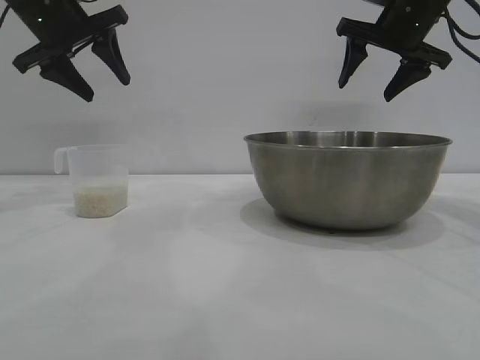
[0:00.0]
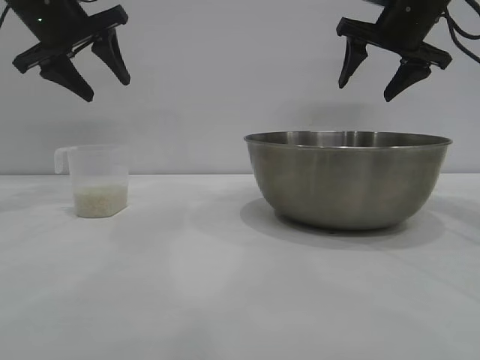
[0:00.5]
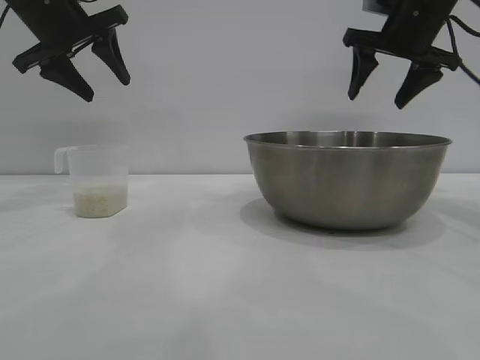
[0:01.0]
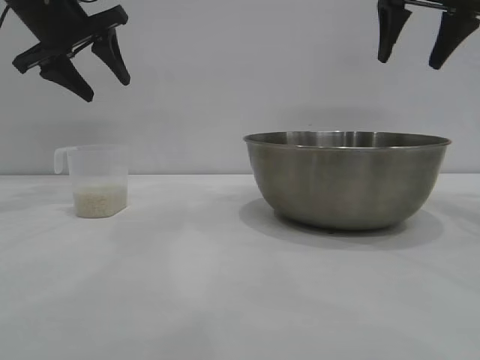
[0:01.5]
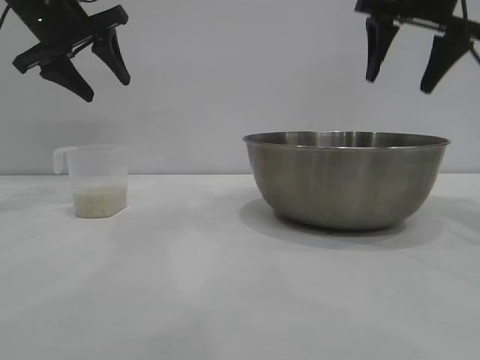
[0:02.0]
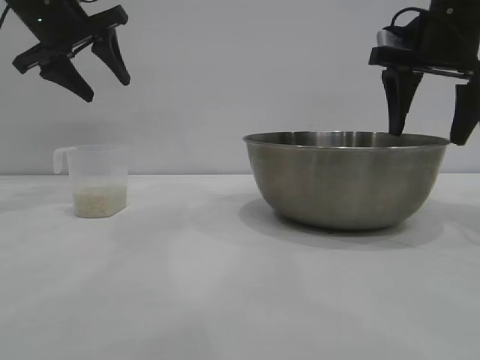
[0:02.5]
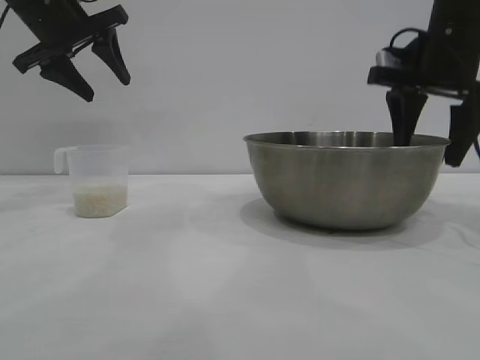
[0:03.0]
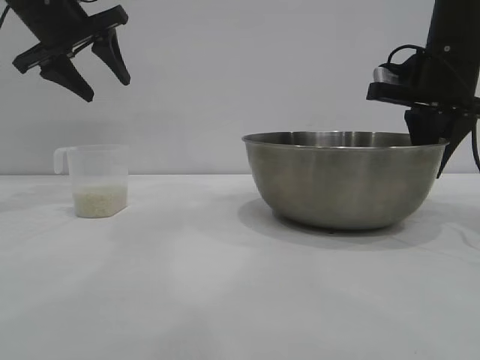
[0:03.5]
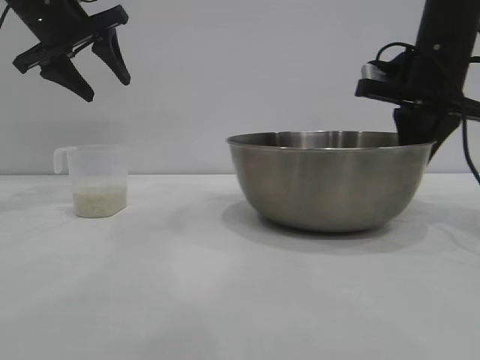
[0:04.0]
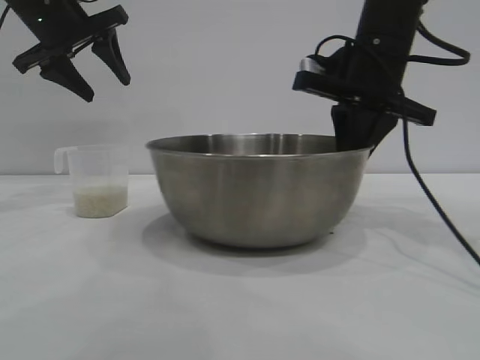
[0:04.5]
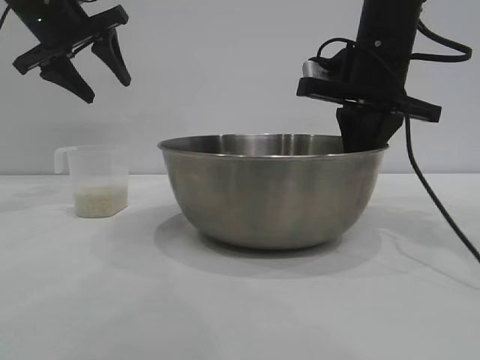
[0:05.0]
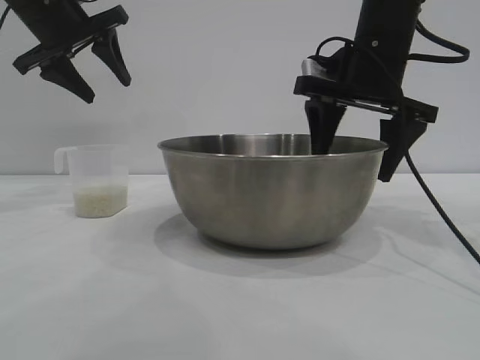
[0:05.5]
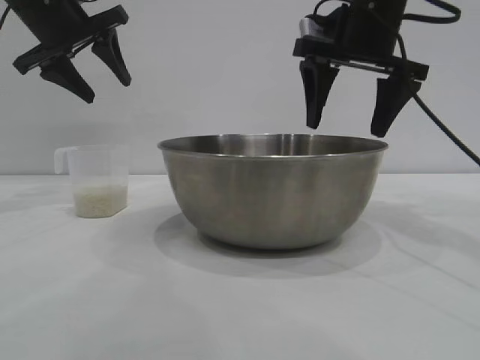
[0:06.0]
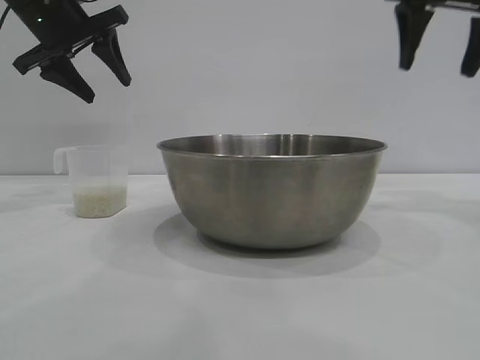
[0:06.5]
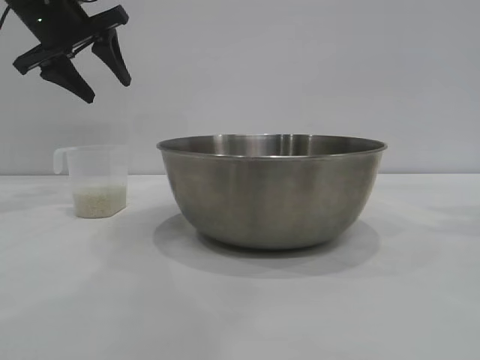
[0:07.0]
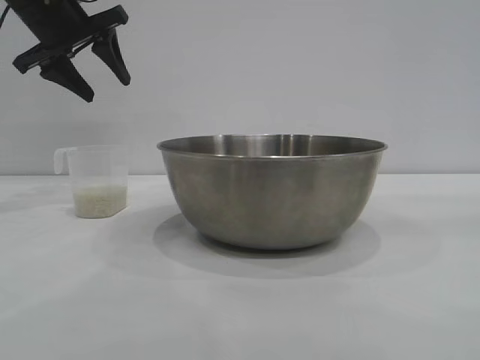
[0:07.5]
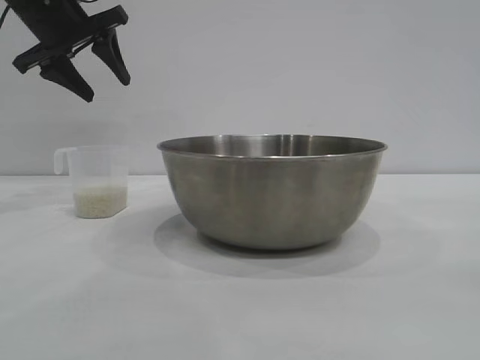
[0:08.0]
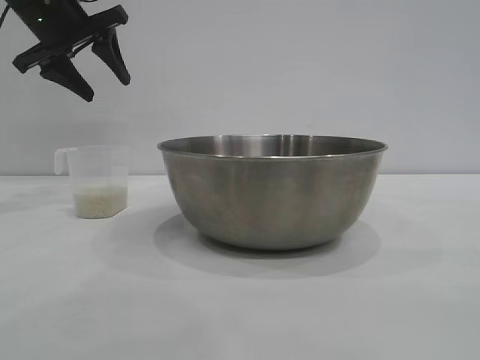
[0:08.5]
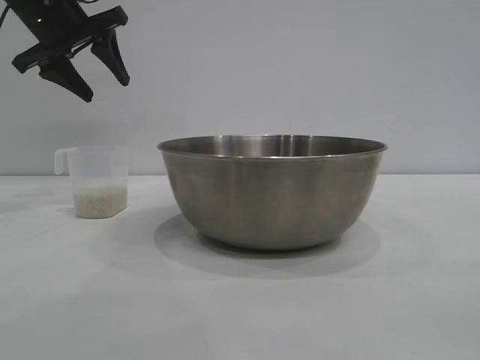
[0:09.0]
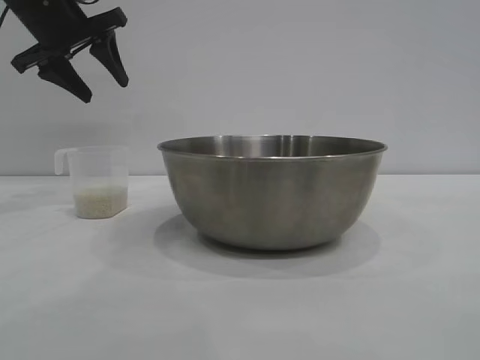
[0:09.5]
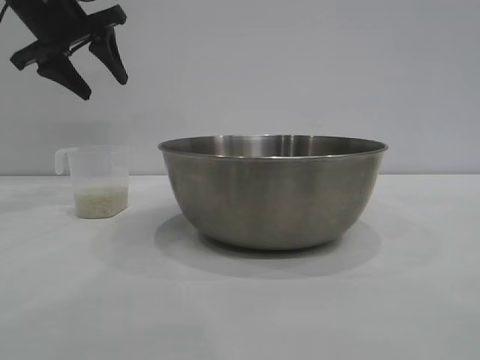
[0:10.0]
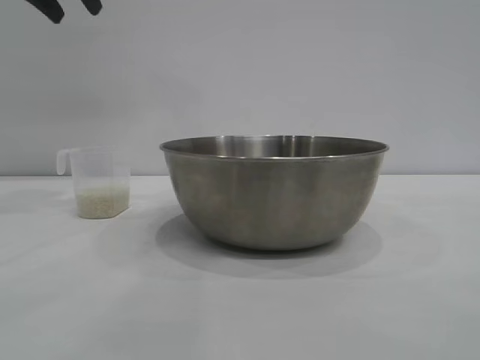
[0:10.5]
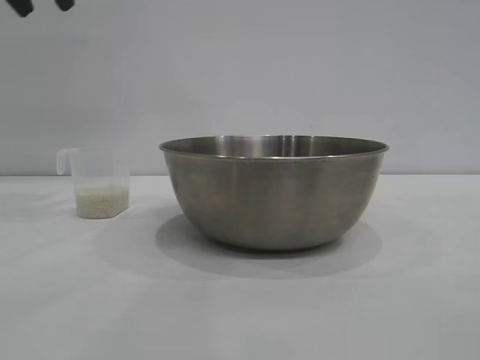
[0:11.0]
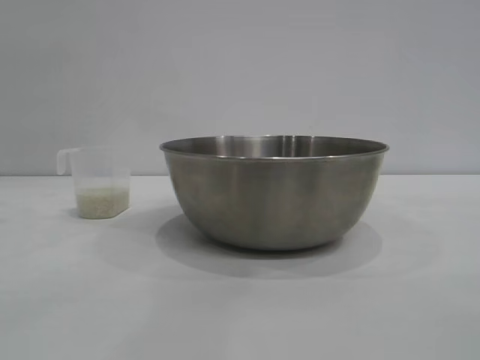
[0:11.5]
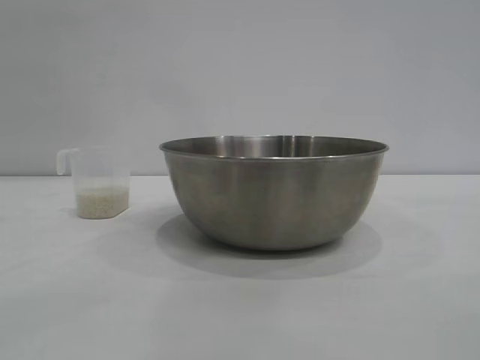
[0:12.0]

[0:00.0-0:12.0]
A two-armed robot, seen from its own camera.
Task of the whole recording: the right gripper grasp the rice container and place it in the center of the table, the left gripper grasp the rice scoop and pour the rice into the rice container.
Step, 0:00.0 to 0:06.0: Move the bowl to the center of view with the right gripper.

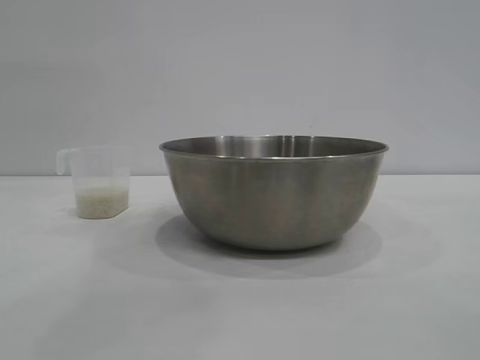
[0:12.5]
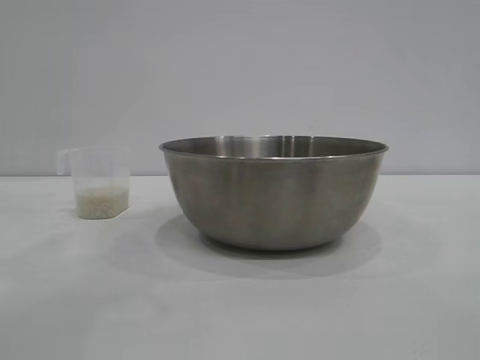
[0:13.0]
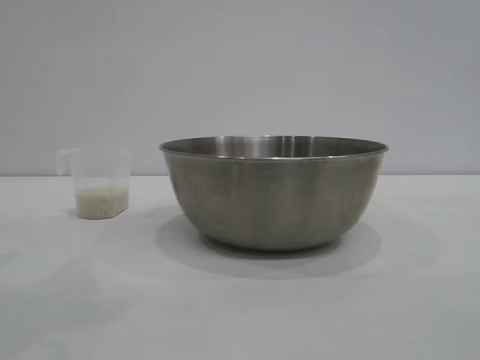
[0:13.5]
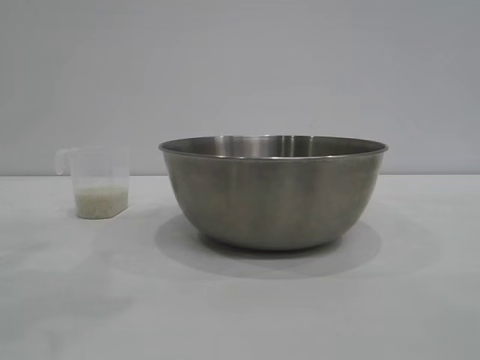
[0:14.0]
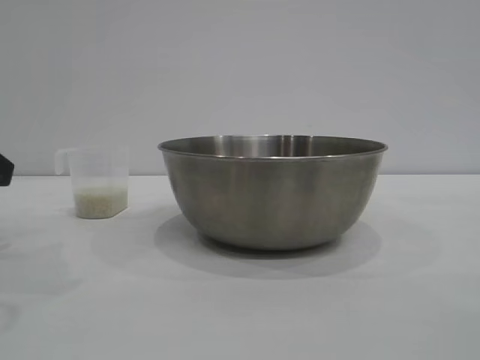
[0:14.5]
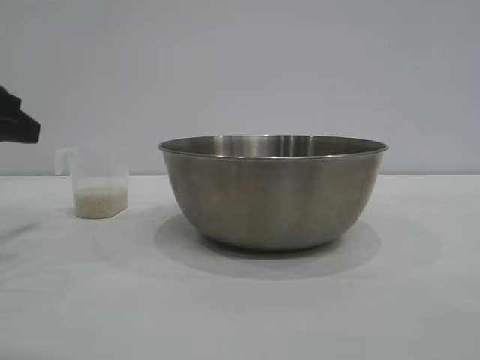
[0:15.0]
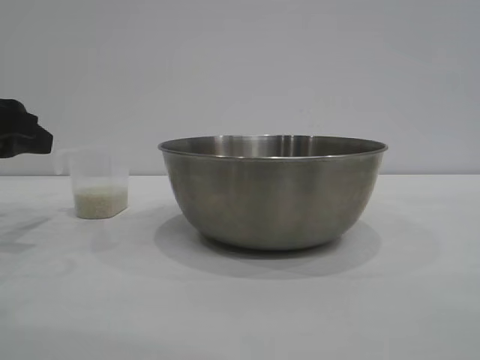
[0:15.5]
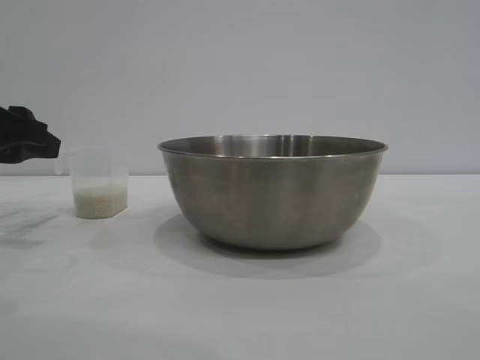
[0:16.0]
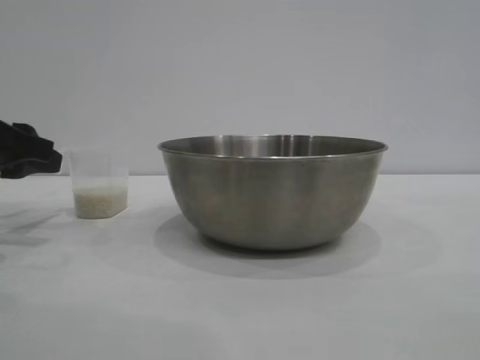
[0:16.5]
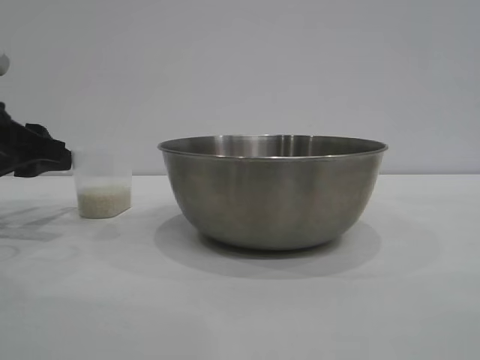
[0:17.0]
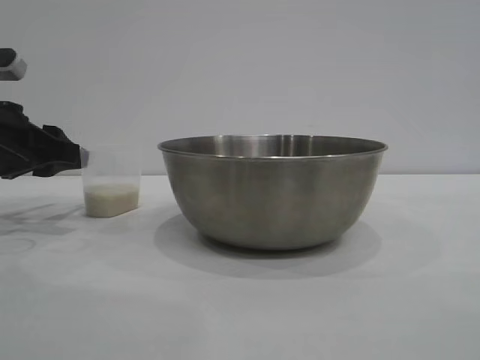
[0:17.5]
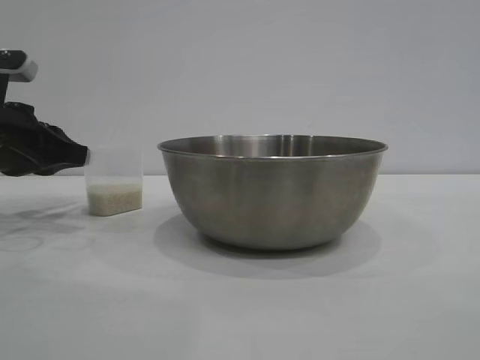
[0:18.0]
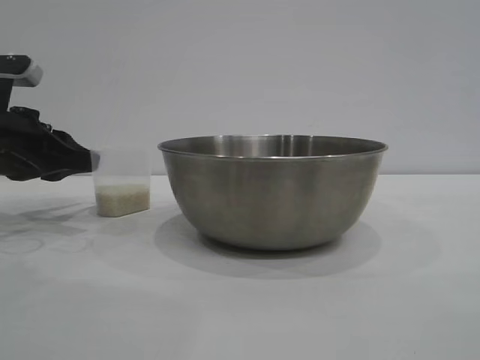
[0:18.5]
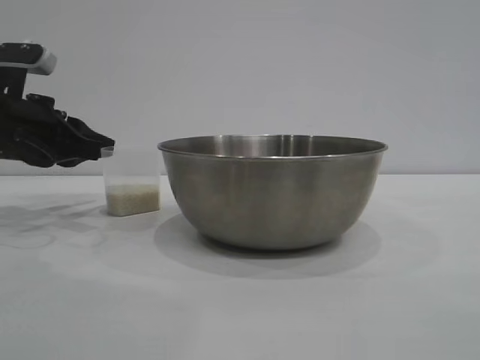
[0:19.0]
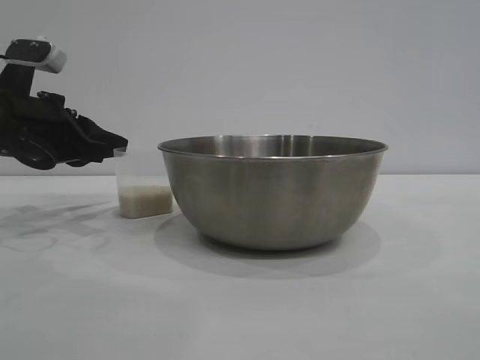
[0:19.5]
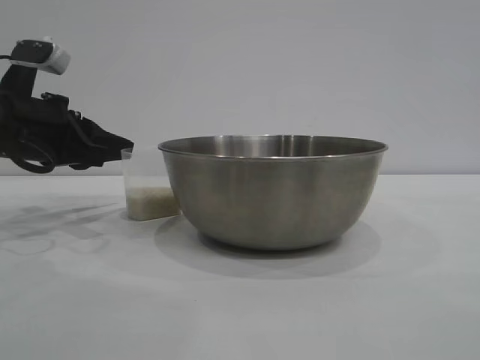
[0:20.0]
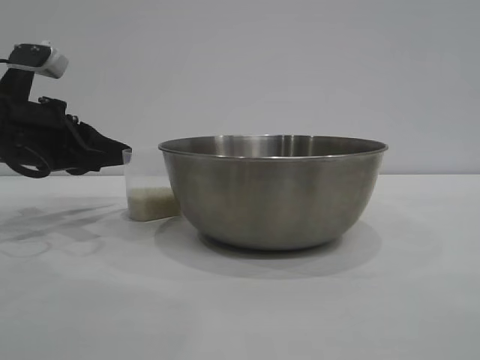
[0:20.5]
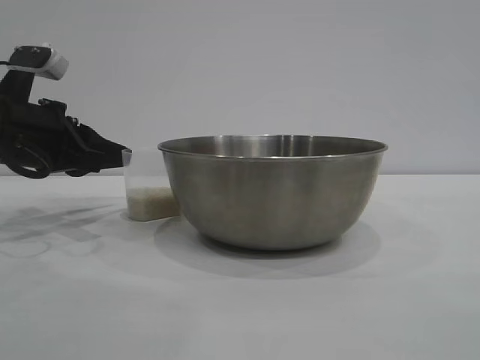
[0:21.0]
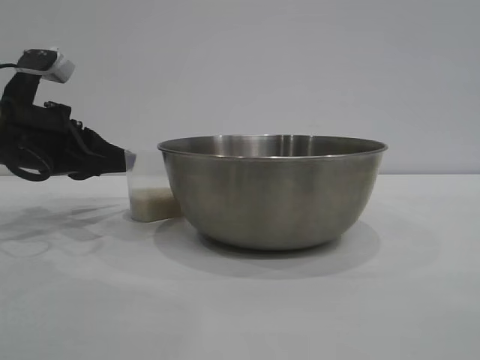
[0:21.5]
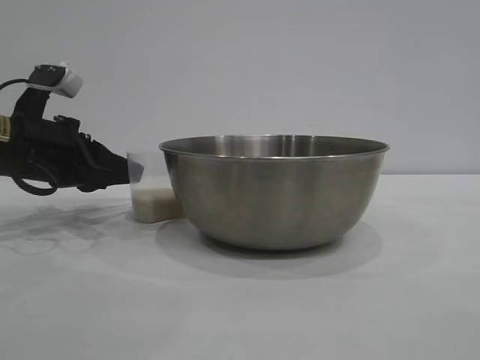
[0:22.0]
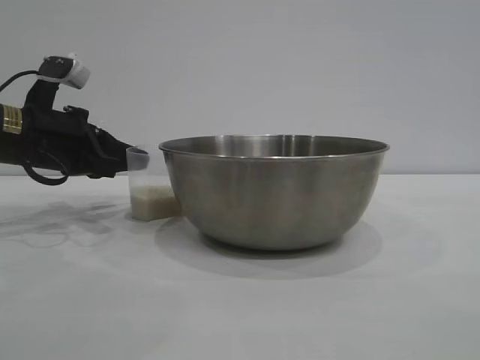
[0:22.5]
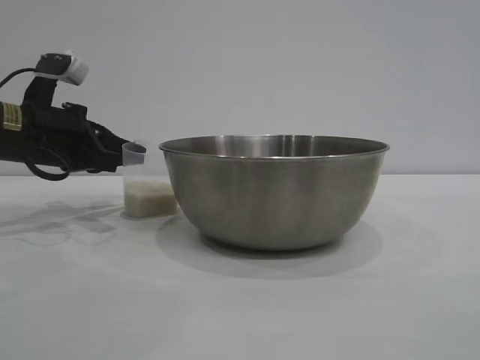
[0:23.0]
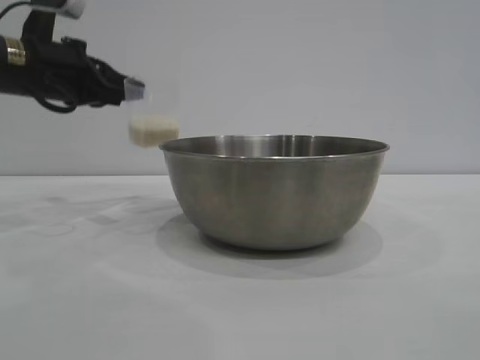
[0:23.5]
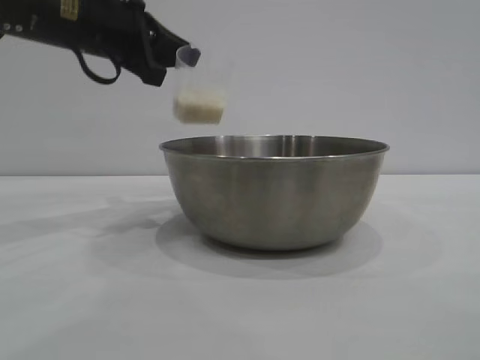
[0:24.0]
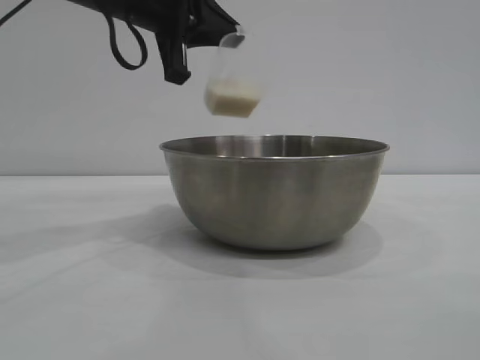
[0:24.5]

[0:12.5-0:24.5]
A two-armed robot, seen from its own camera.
Task of the whole recording: the right gripper grasp the rice container and place it in the center of the table, the left gripper grasp the rice scoop and pour the rice into the rice container.
Step, 0:12.5 to 0:23.0: Pick up the cup with rice in it with the left gripper.

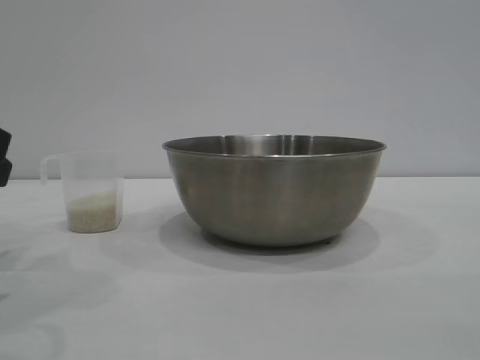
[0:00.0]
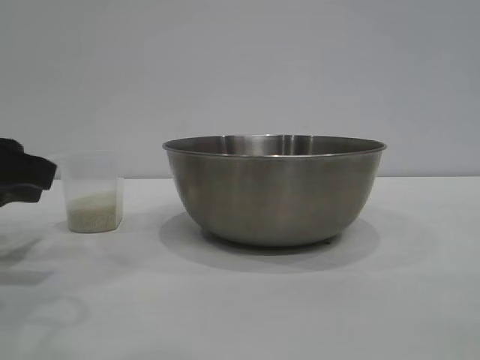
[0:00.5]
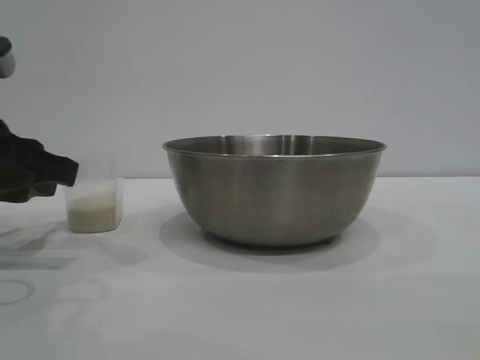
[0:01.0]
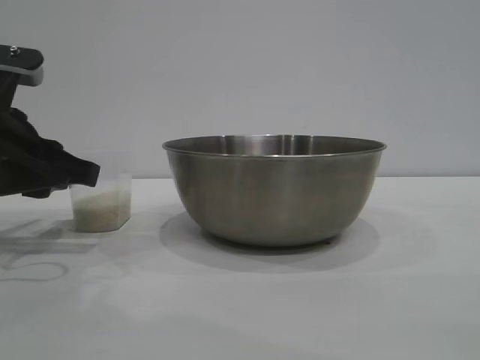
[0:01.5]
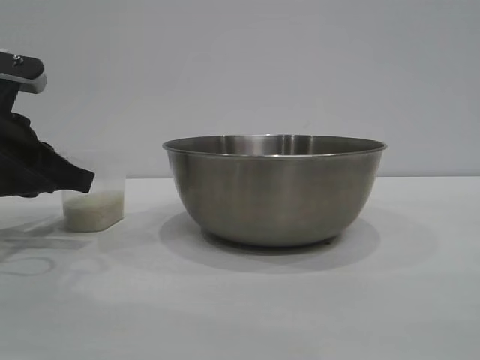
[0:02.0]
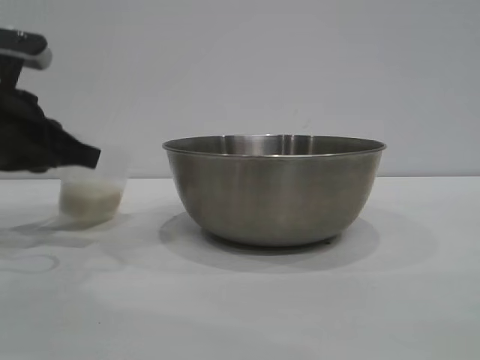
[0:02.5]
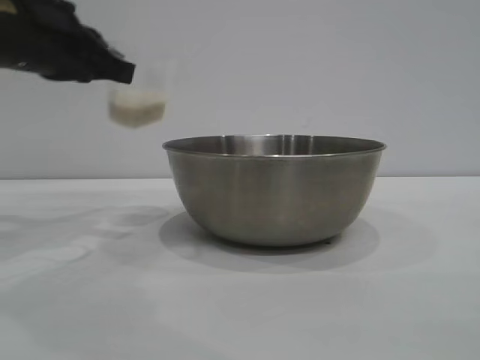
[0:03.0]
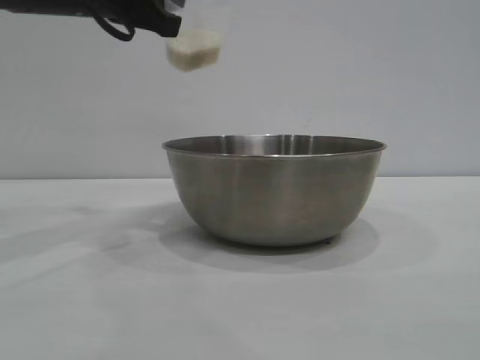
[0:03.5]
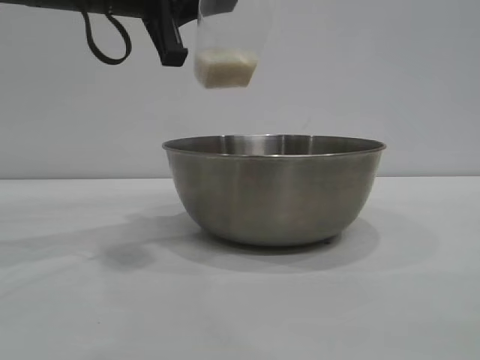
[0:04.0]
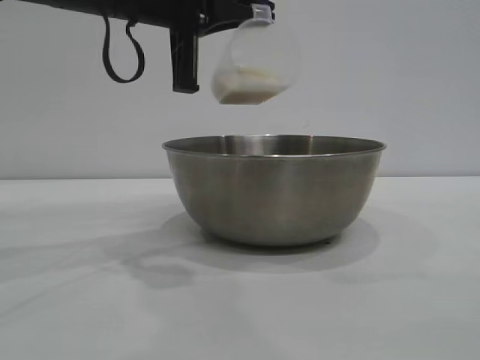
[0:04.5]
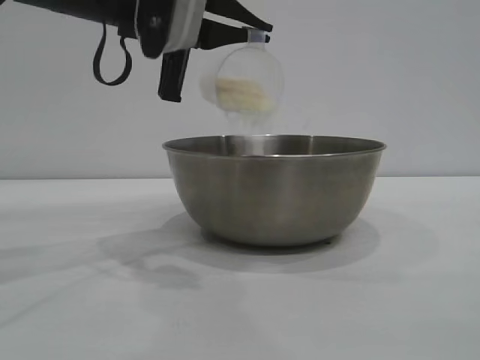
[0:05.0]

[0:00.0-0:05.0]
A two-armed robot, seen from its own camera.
Task of the whole recording: the right gripper grasp the rice container and place it in the center of the table, the left gripper grasp the rice scoop and pour the rice into the rice container.
Step, 0:00.0 to 0:02.5: Pick up the cup with rice in it with the left gripper.
